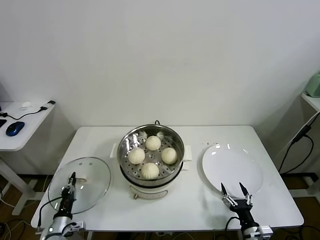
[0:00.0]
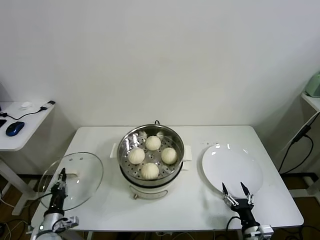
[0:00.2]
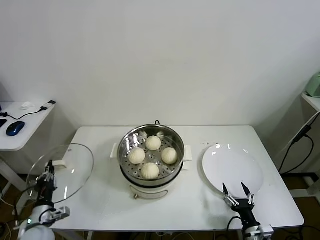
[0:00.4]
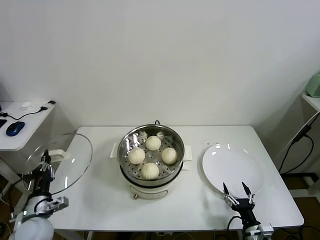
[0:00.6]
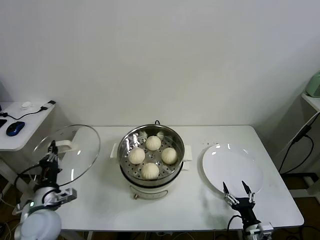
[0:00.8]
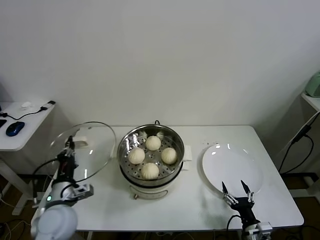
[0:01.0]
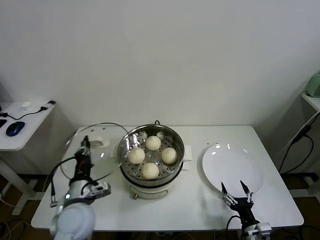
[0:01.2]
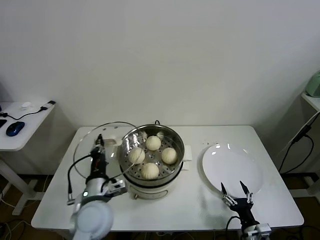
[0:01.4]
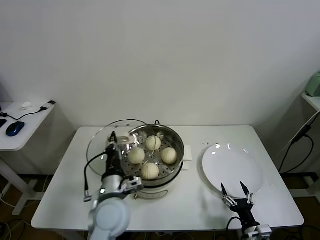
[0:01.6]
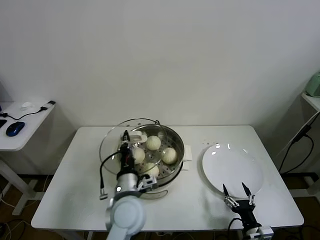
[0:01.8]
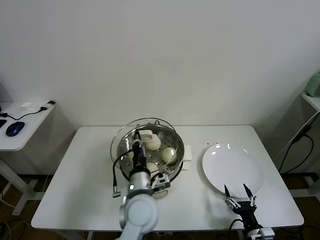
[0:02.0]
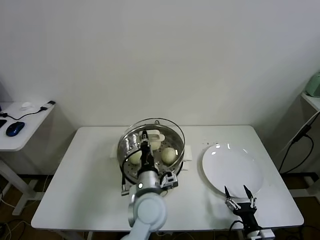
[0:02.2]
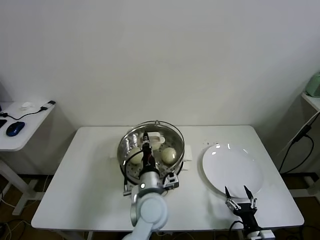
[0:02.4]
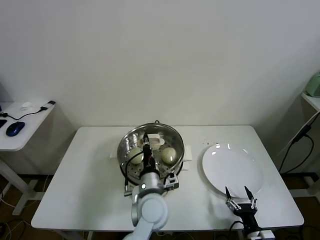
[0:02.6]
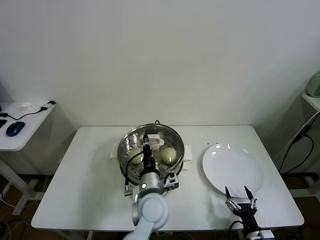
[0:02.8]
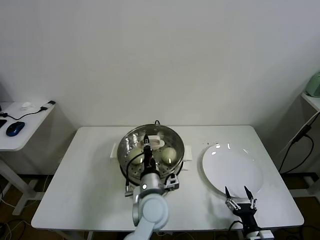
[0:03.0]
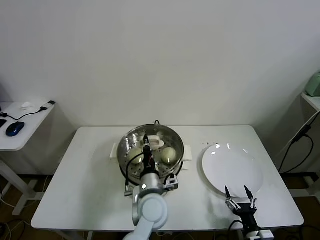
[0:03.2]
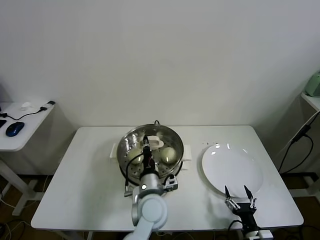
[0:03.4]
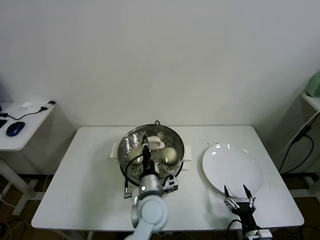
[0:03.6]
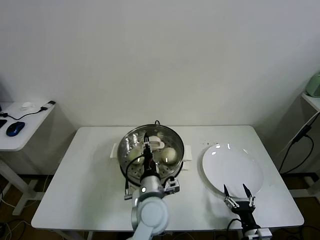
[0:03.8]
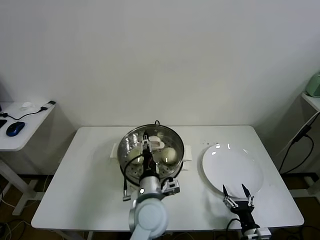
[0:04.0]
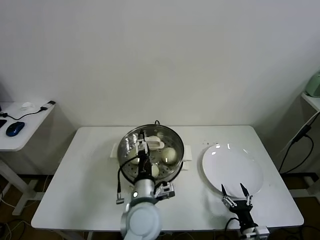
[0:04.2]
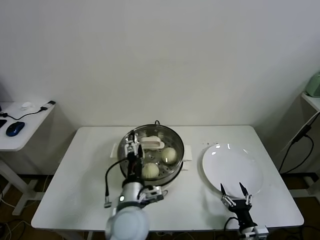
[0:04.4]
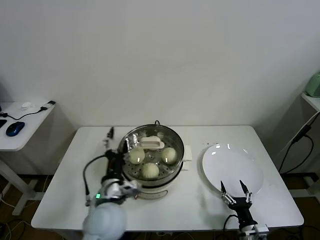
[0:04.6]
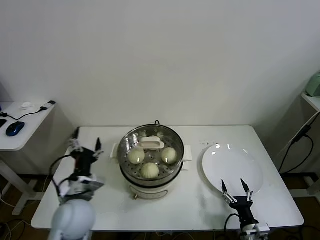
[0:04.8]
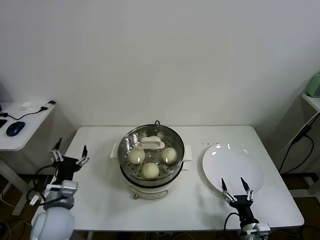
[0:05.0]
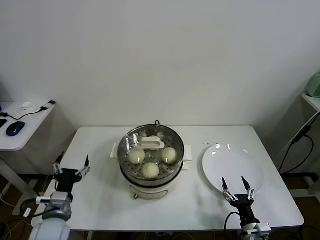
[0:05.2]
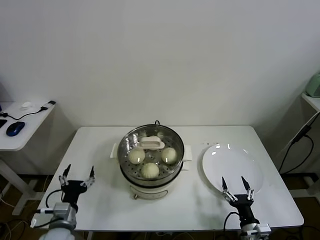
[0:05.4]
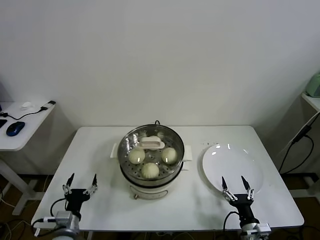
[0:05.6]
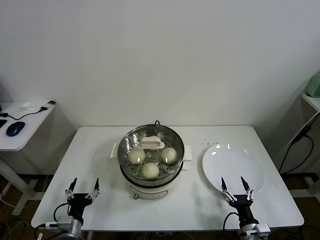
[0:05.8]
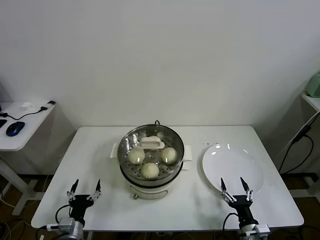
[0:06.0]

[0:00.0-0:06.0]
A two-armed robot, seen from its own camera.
Task of the whole recording: take steamed baozi put them in steamer.
Step, 0:00.0 to 0:04.0: Place the pot lid on the steamer with left gripper.
0:00.0 to 0:01.6: The left gripper travels upward and to the right by roughly 35 cm.
0:01.6 to 0:03.0: The left gripper travels to the right by about 10 cm.
0:03.0 to 0:04.4: The left gripper shifts by some 5 cm, and opens up.
0:04.4 to 0:06.0: The left gripper heads to the left and downward, covering approximately 30 cm.

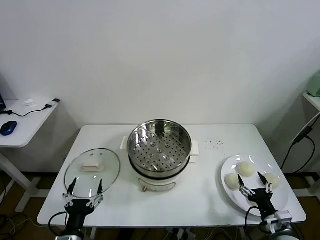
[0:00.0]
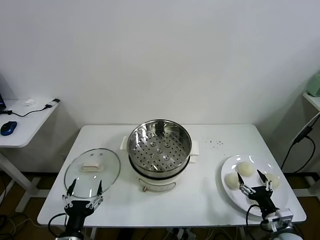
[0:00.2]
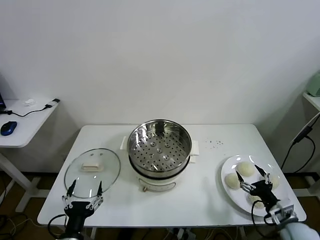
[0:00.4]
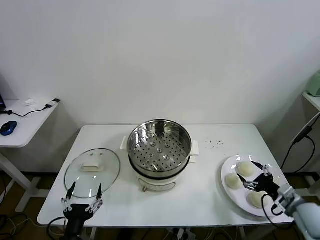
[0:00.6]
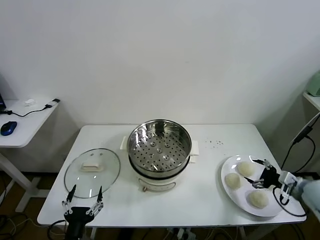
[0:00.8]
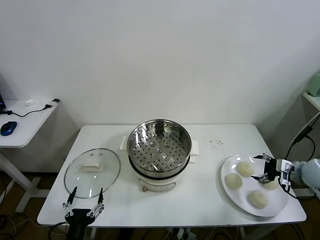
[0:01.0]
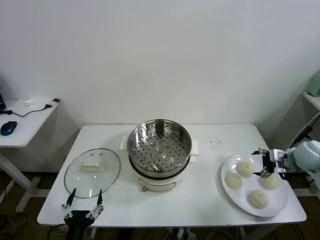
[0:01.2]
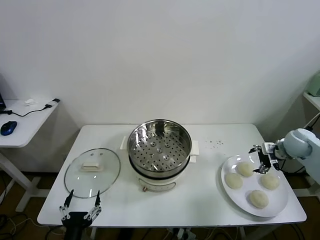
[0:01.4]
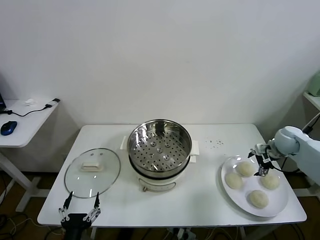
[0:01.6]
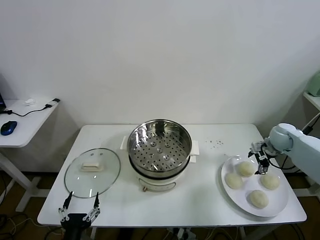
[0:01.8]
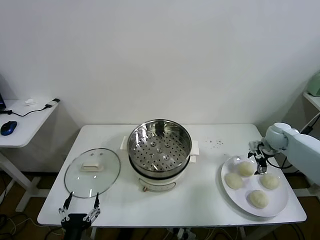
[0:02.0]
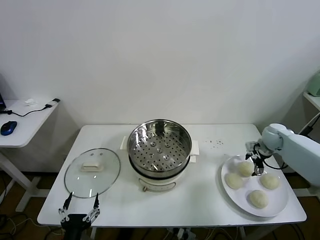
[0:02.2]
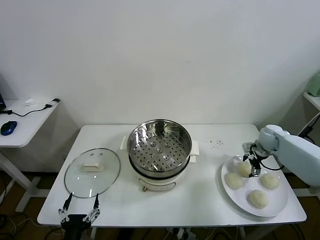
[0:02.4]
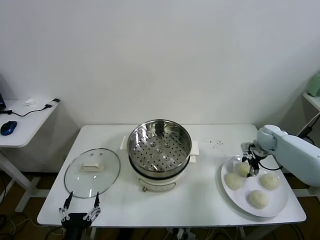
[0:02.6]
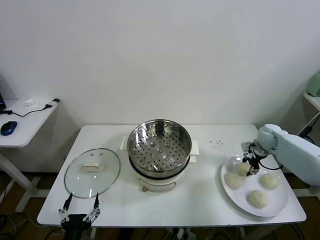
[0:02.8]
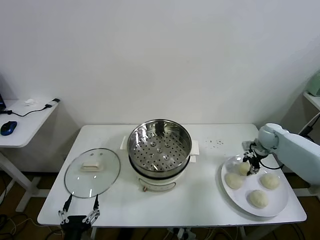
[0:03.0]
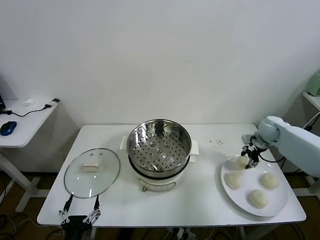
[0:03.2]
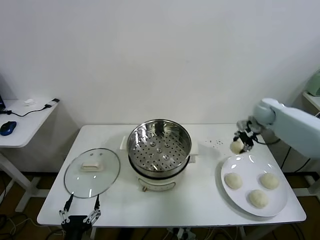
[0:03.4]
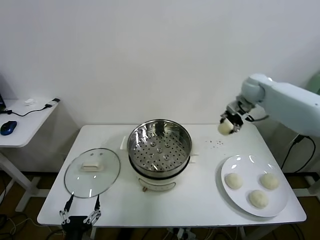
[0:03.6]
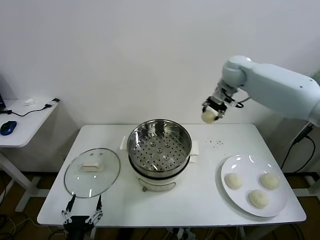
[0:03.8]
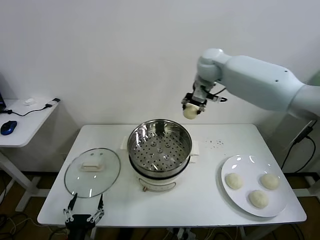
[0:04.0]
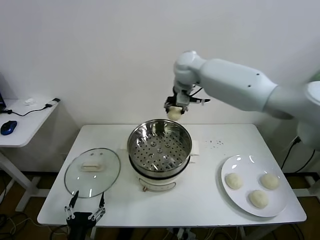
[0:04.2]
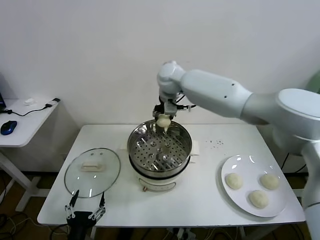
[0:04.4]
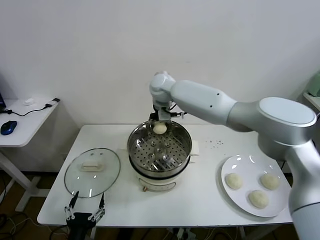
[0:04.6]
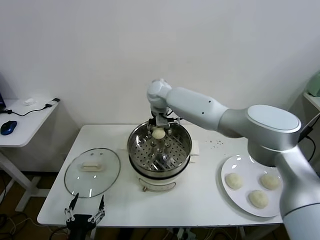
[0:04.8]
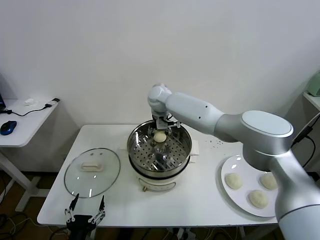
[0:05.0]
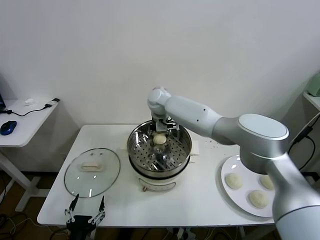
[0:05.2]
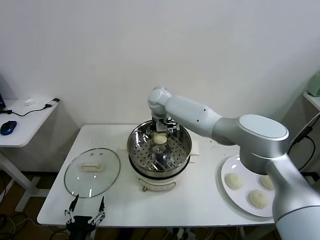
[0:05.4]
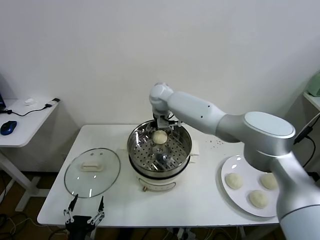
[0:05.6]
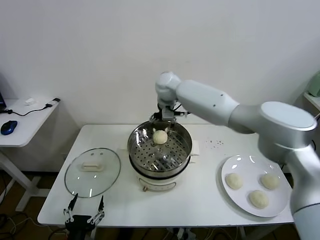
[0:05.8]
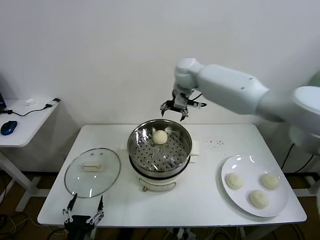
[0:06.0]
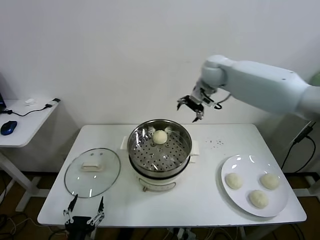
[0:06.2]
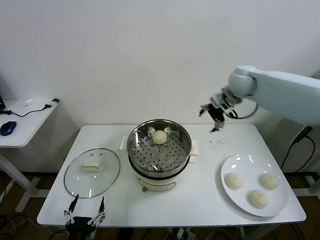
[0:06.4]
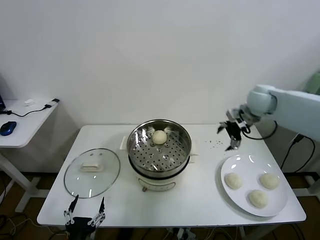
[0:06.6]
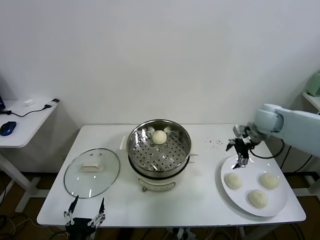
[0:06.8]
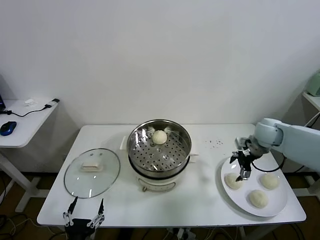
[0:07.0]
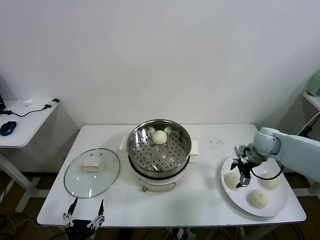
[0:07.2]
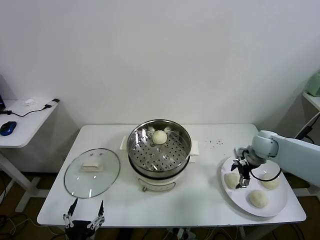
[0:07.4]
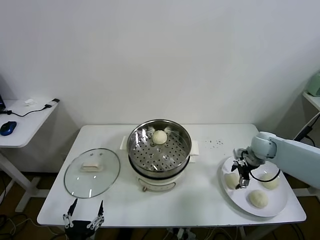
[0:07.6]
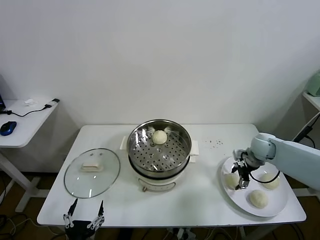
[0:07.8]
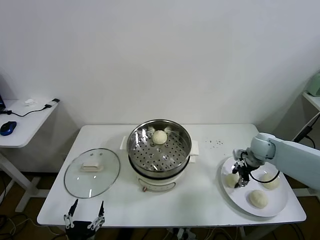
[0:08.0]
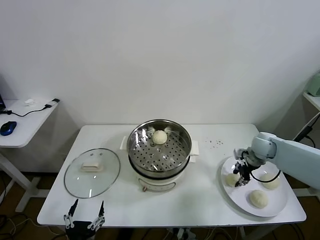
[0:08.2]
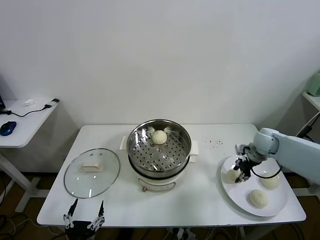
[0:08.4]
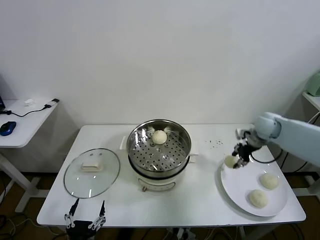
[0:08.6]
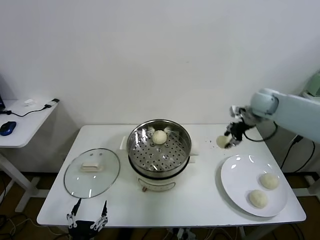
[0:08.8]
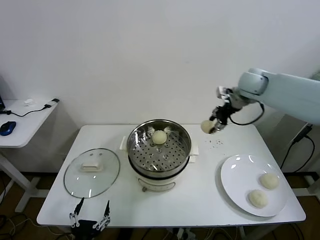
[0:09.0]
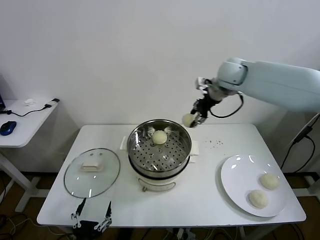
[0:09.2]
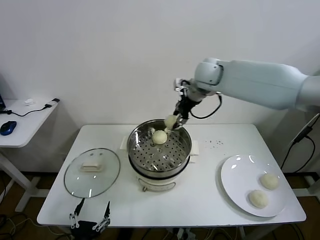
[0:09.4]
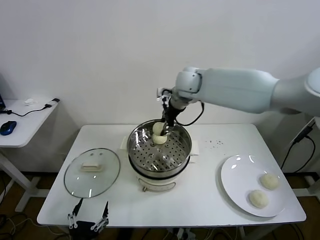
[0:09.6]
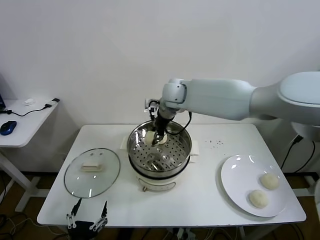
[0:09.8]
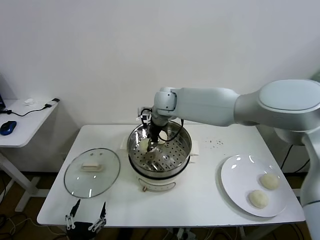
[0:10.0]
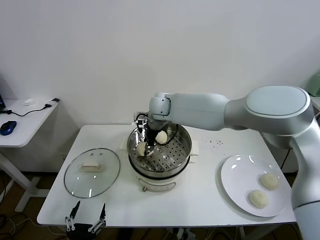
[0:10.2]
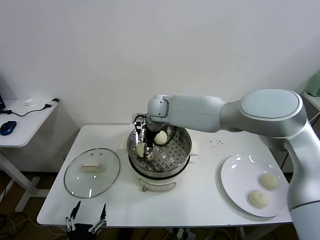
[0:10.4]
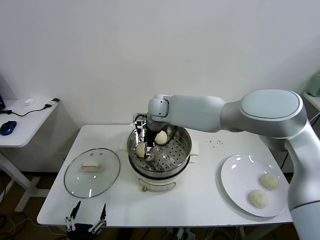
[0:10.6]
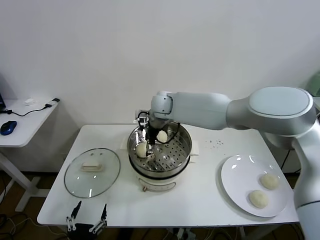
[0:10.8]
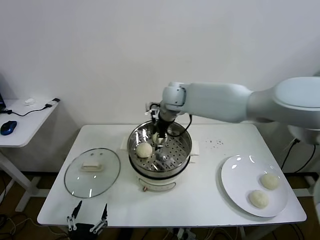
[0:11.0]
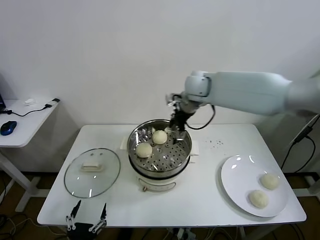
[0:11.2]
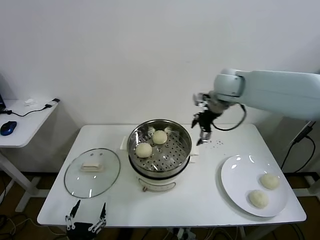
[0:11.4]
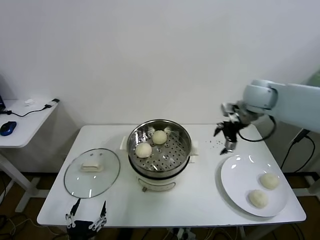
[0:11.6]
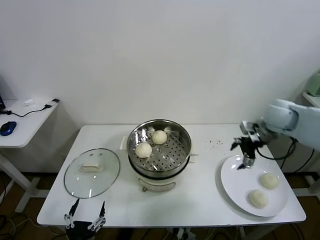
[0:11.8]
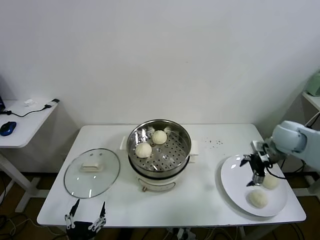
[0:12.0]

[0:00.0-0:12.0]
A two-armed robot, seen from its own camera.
Task of the whole recording: take steamed baozi put them in steamer.
Step, 0:00.0 to 0:02.8: Grasp the baozi in the plate with right gripper.
Step, 0:03.0 to 0:05.4: Place the baozi on the steamer with right gripper.
Step, 0:05.6 to 0:08.0: Grasp the baozi in the plate with right gripper.
Step, 0:08.4 to 0:10.6: Place the baozi on the steamer with right gripper.
0:01.6 to 0:03.0: The right gripper closes up.
0:03.0 to 0:04.4: The right gripper heads to the left, covering approximately 40 cm.
0:04.4 to 0:06.0: The right gripper goes about 15 cm to the right, and opens.
0:06.0 to 0:07.6: The right gripper goes roughly 35 cm downward, to the right and backward.
0:07.6 to 0:09.0: The right gripper shifts some 30 cm upward and to the left, and closes.
0:09.0 to 0:10.4: The right gripper goes approximately 30 cm to the left and downward, and opens its fingers.
0:10.4 to 0:12.0: The right gripper travels to the right by roughly 40 cm.

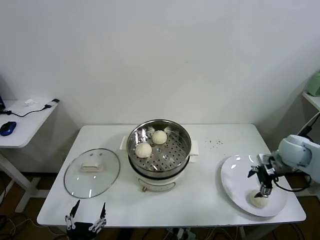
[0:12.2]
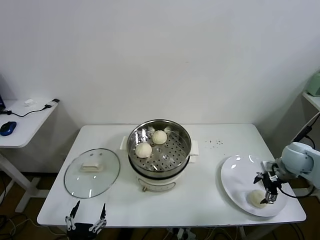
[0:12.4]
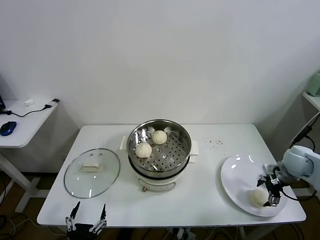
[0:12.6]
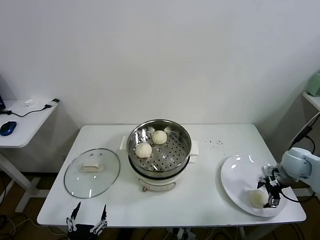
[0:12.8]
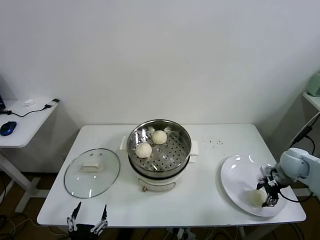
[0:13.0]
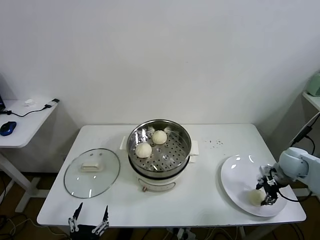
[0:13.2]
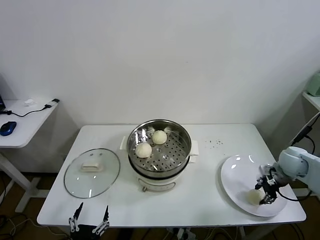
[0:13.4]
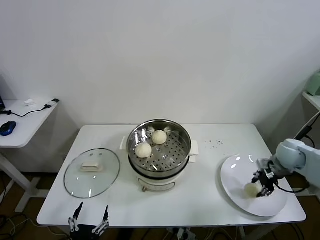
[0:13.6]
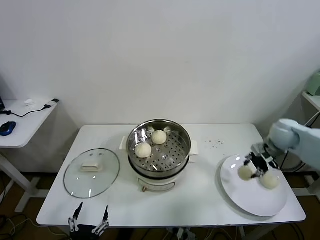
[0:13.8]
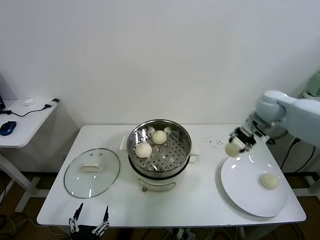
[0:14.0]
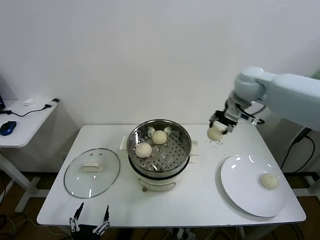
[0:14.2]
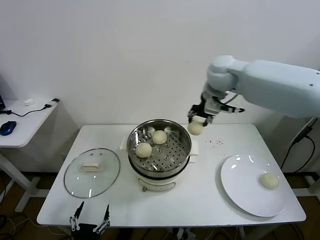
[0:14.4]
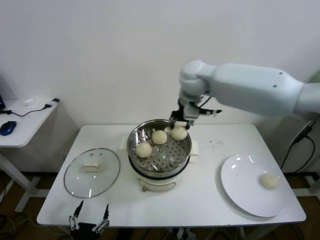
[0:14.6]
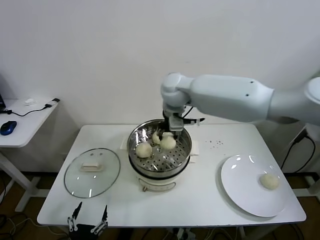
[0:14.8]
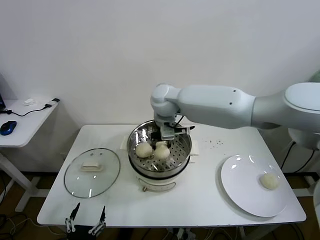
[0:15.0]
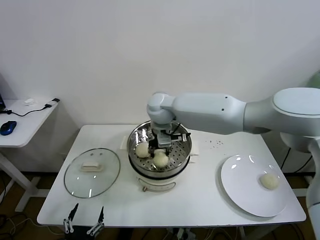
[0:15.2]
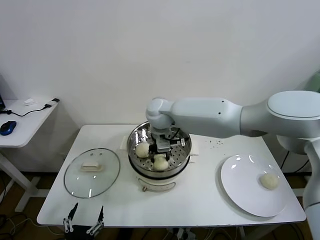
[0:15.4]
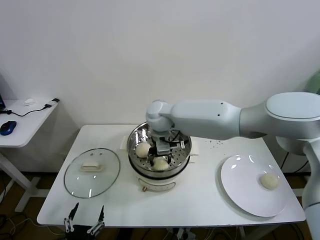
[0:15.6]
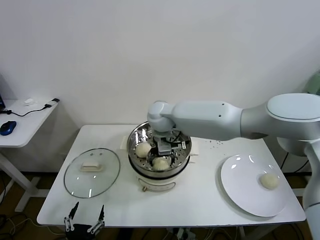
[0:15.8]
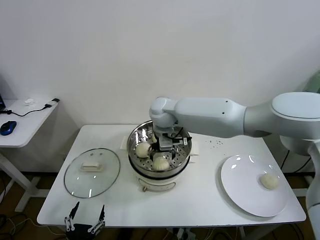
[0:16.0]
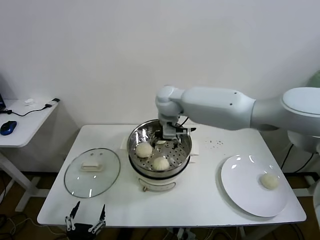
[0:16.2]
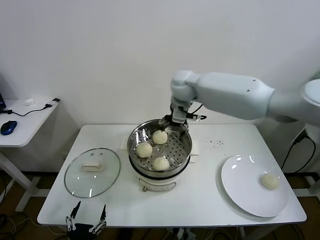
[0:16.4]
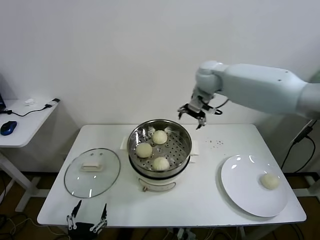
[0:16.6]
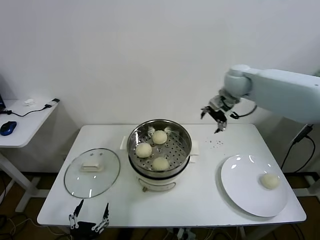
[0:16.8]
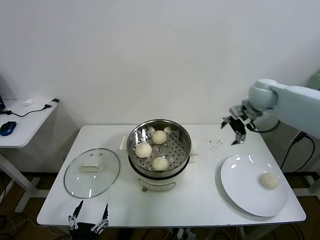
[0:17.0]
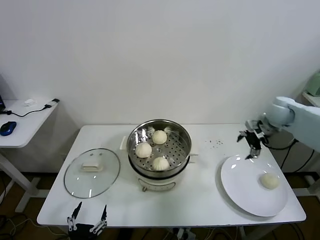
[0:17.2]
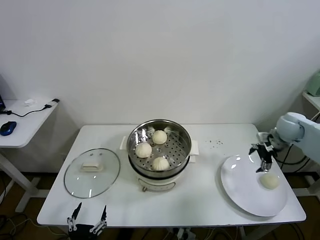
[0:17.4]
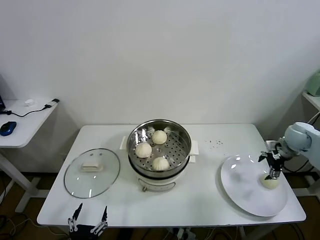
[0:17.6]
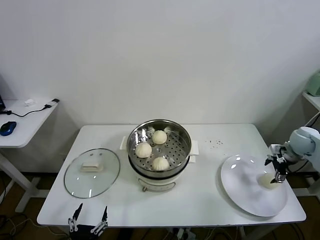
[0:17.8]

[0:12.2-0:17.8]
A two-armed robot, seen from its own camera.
Task of the whole recording: take steamed baozi put them in steamer.
Step, 0:13.4 to 0:16.0: Place the baozi on the steamer with right gripper.
0:12.2 to 0:13.6: The right gripper closes up.
0:13.6 to 0:15.0: The right gripper shifts some 40 cm to the left.
0:15.0 to 0:16.4: The right gripper goes approximately 15 cm to the right, forward and upward, and opens up.
0:16.4 to 0:17.8: The right gripper travels to the right and downward by approximately 50 cm.
